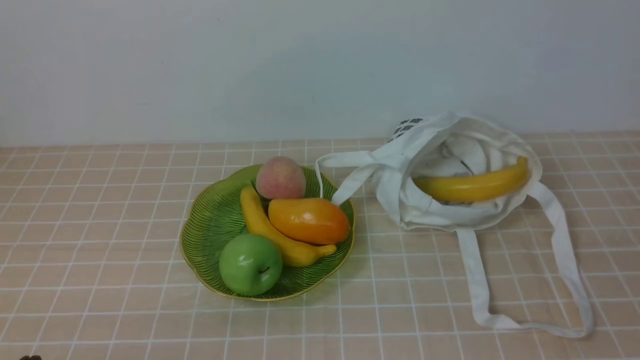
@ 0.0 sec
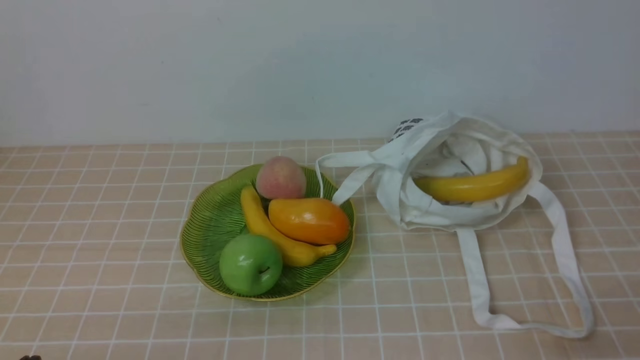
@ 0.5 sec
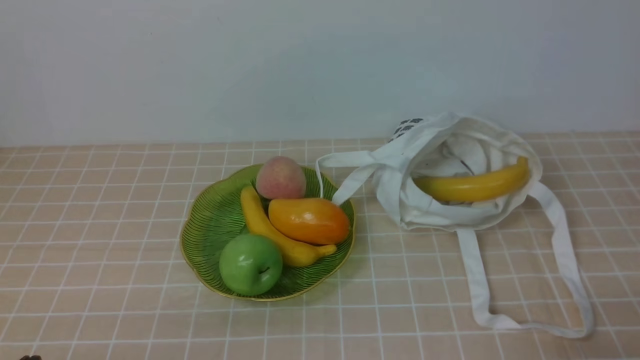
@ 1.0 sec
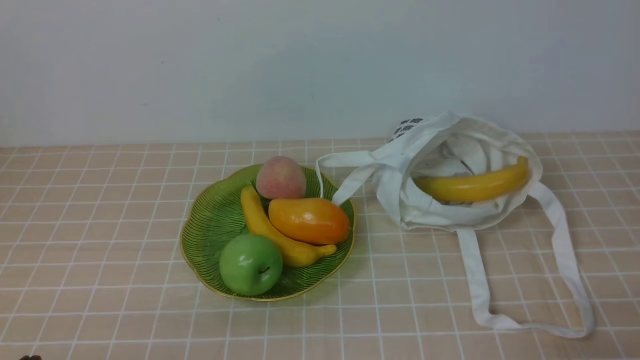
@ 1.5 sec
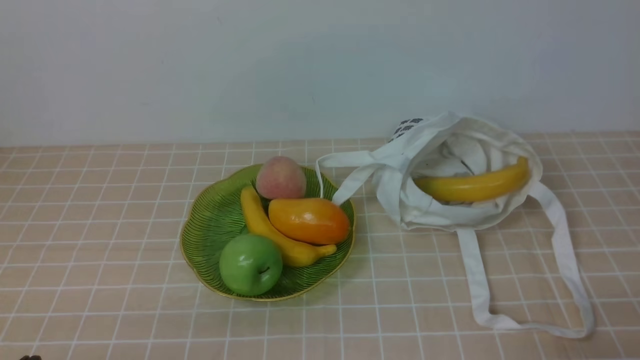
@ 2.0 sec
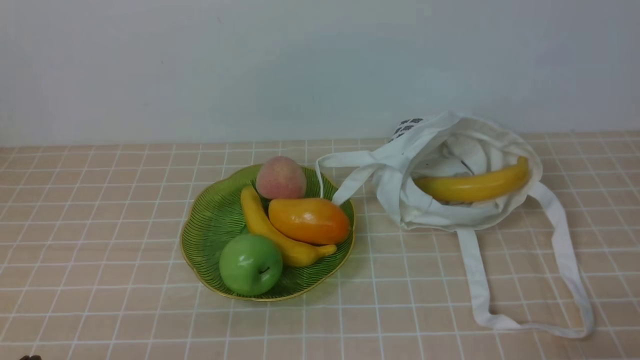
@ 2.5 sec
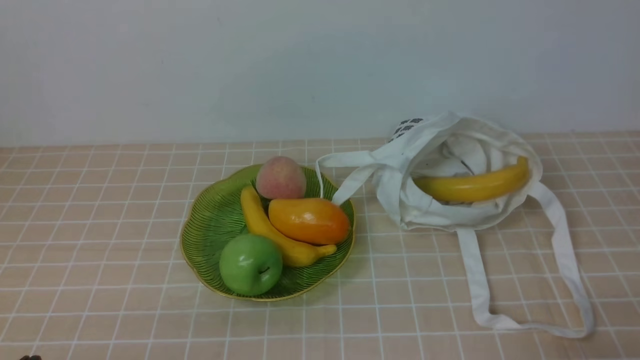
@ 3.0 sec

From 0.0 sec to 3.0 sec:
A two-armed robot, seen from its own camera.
From 1.5 sec to 3.0 sec: Neither gripper changes place.
